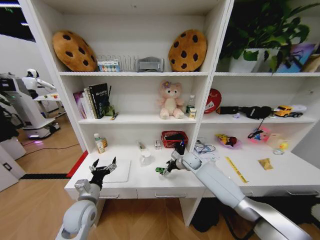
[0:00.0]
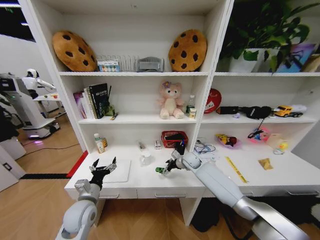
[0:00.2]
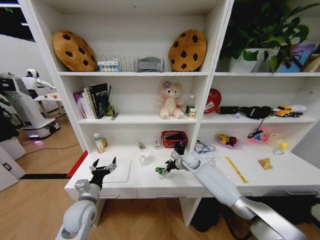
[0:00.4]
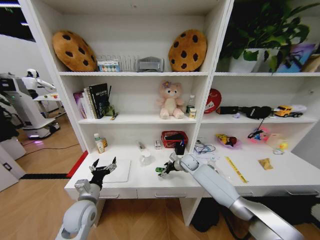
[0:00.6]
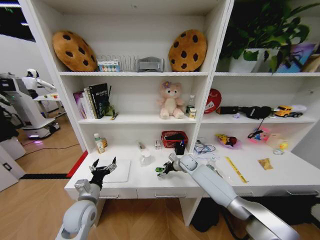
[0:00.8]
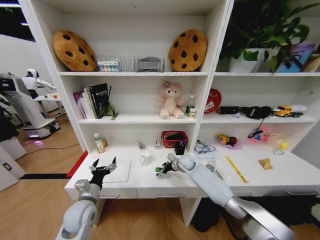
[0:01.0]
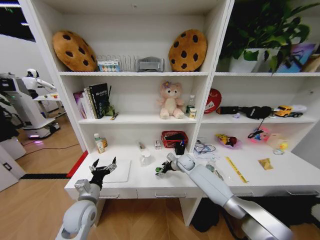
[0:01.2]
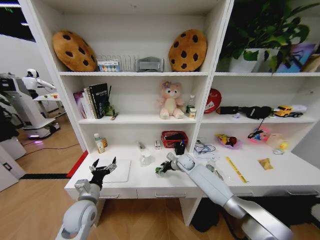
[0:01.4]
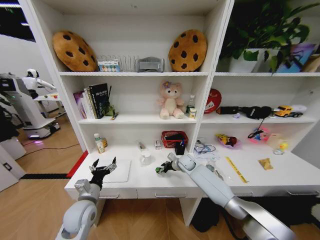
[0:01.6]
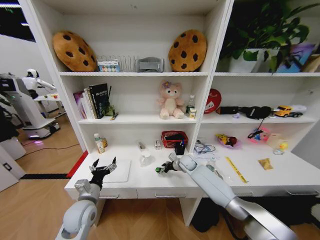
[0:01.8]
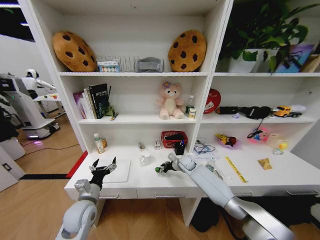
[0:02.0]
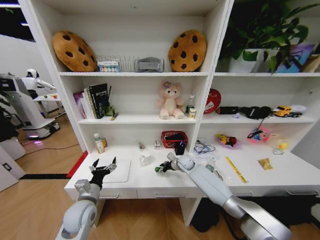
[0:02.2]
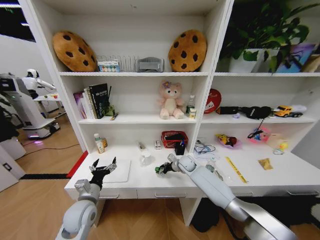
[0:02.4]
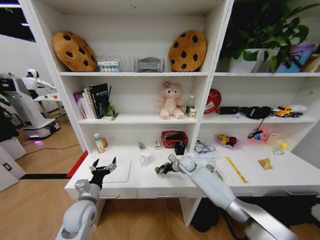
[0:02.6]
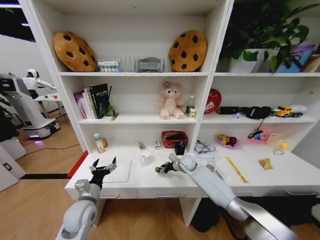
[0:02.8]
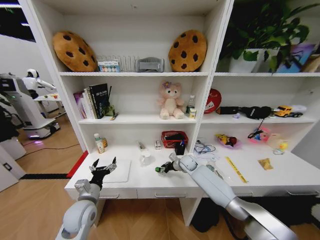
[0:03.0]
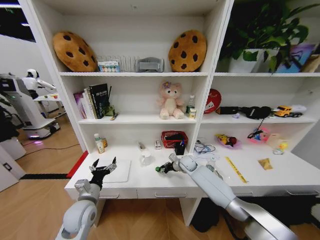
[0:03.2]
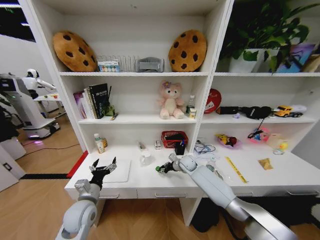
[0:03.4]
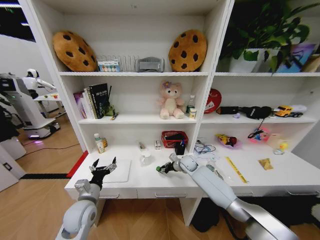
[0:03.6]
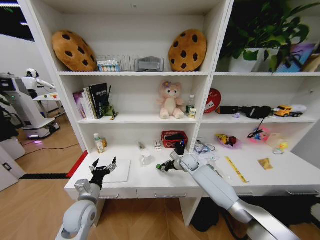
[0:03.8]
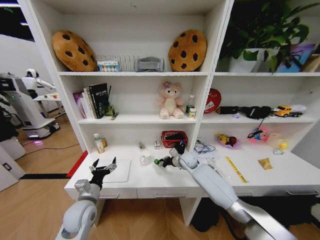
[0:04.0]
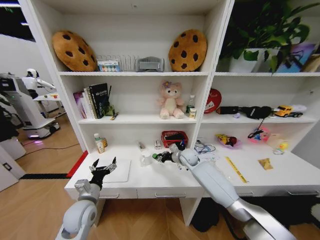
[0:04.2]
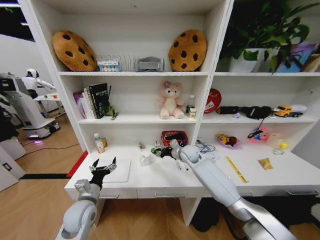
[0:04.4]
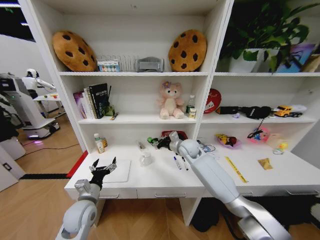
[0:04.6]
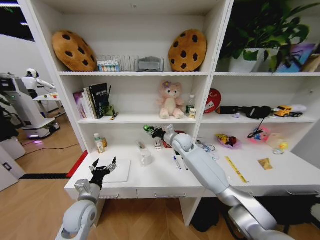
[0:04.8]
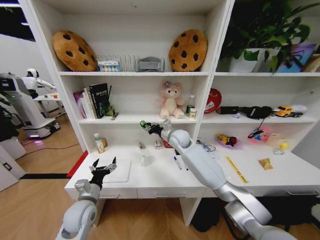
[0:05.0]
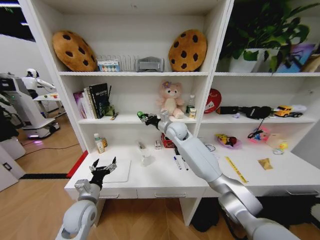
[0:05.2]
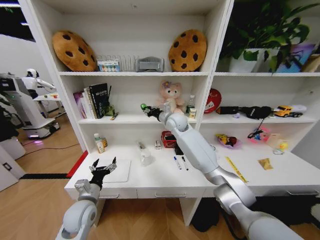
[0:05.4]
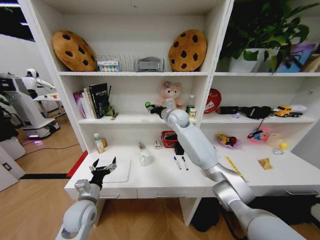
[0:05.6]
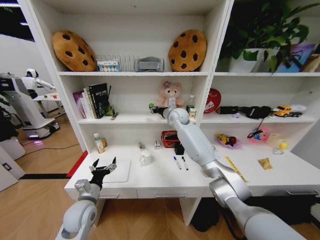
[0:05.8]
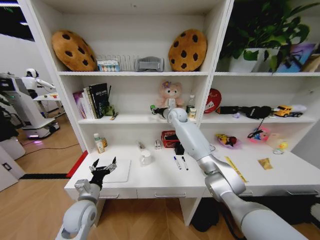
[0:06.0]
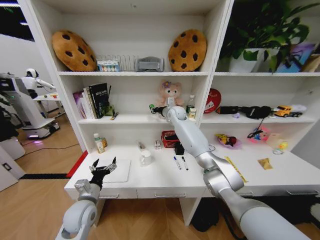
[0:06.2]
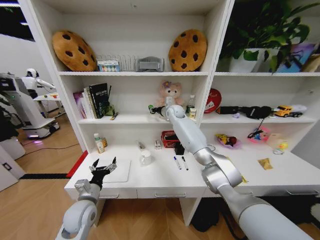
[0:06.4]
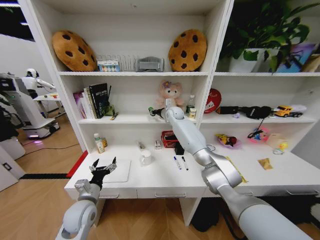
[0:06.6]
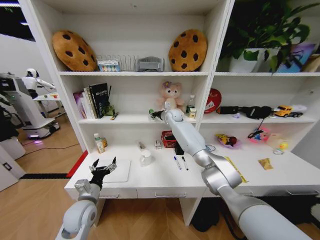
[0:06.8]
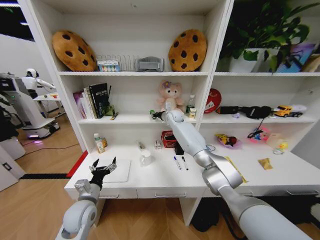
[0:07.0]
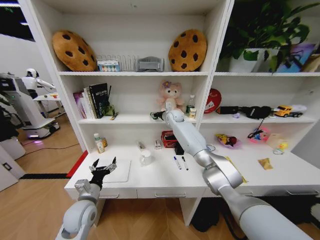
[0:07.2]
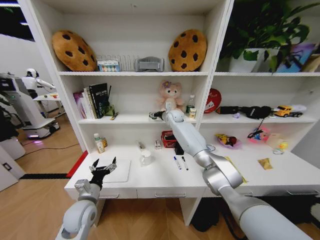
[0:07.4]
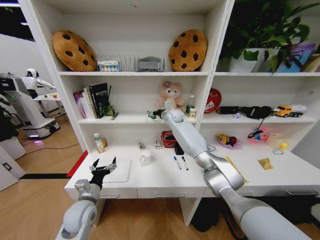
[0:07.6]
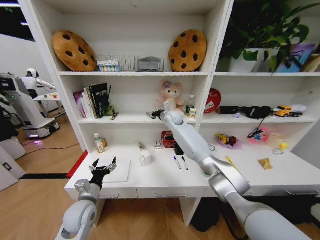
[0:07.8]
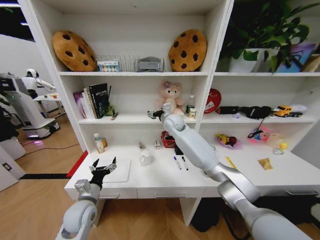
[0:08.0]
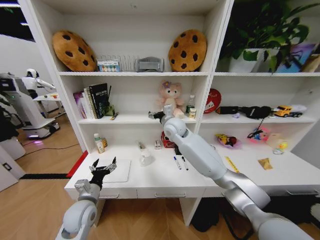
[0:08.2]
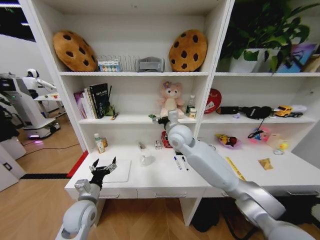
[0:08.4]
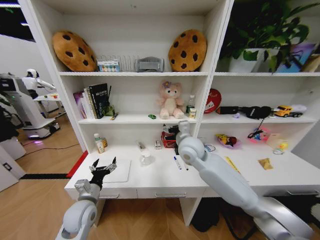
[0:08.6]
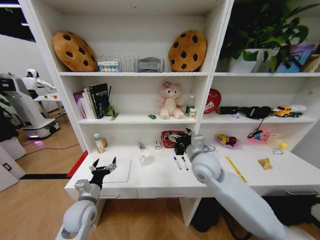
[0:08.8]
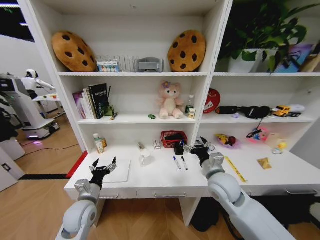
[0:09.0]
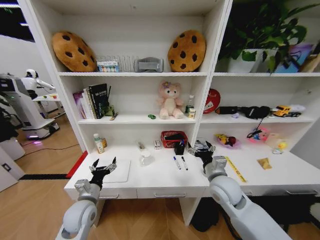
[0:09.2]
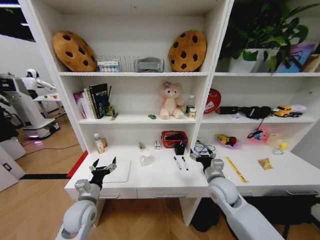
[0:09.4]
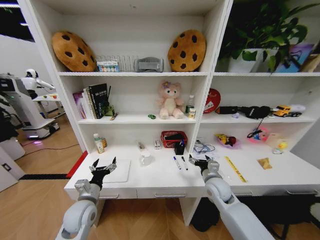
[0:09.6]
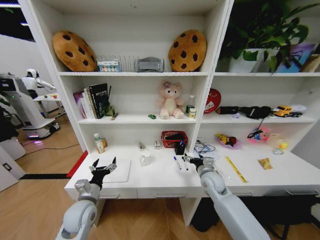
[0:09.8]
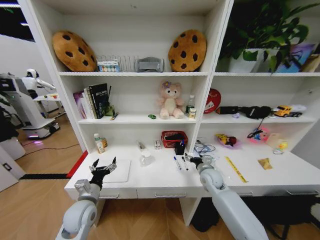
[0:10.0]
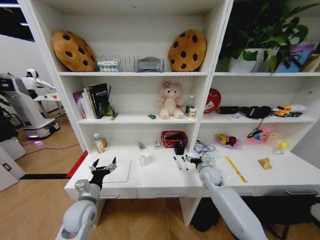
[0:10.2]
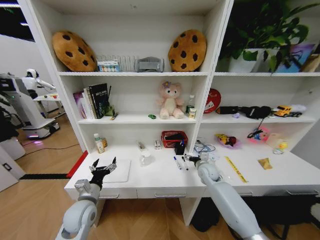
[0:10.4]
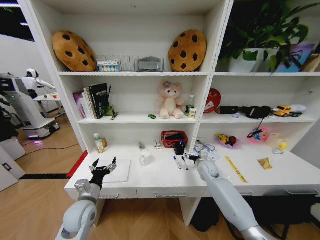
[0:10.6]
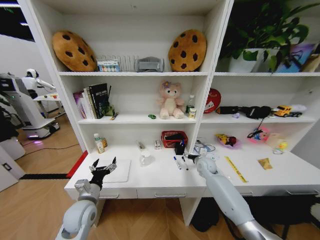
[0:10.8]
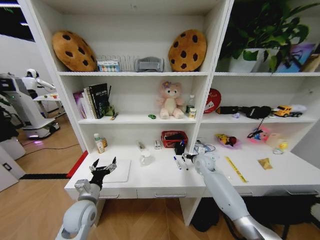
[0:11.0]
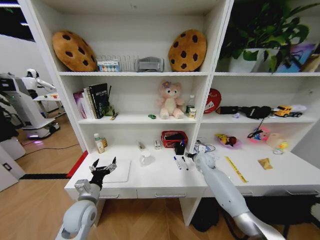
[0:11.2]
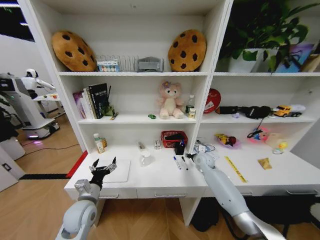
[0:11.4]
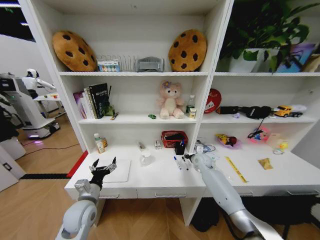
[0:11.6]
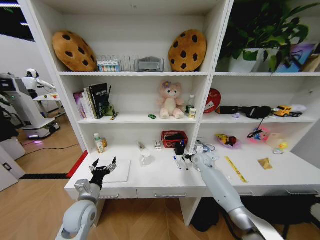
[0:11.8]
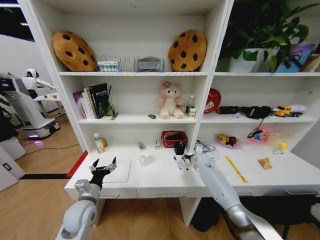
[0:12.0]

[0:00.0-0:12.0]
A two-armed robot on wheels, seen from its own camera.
Task of the whole recording: Organize the objects on the table.
0:00.0 to 0:01.6: There are only small adjustments of the grippers.
0:01.6 to 0:03.0: Both grippers stay about where they are.
0:03.0 to 0:04.4: The right gripper is displaced upward by roughly 10 cm.
0:04.4 to 0:06.0: The right gripper heads upward and forward, covering some 20 cm.
0:06.0 to 0:07.6: The right gripper opens.
0:07.6 to 0:09.0: The right gripper is displaced backward by approximately 35 cm.
0:09.0 to 0:10.4: The right gripper shifts approximately 20 cm forward, downward and to the right.
0:10.4 to 0:12.0: The right gripper shifts about 10 cm forward, and closes up.

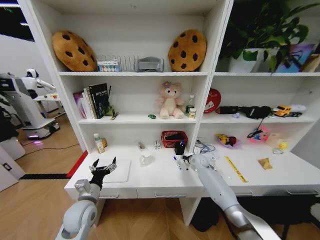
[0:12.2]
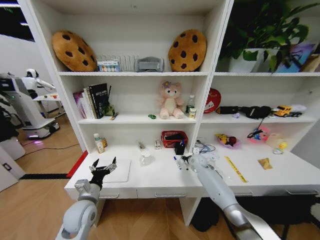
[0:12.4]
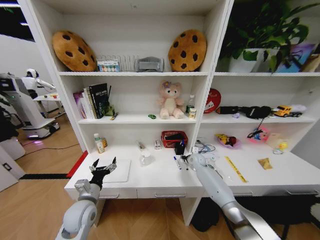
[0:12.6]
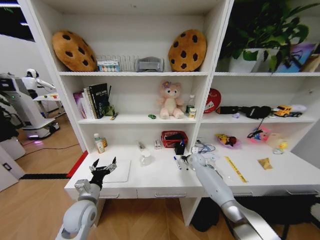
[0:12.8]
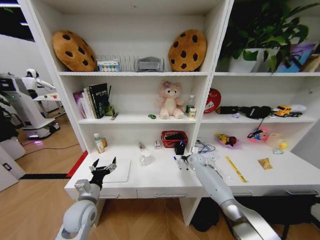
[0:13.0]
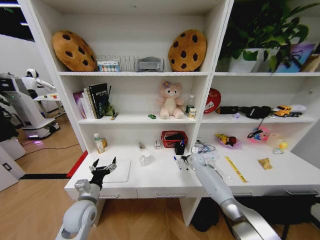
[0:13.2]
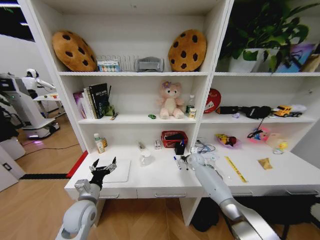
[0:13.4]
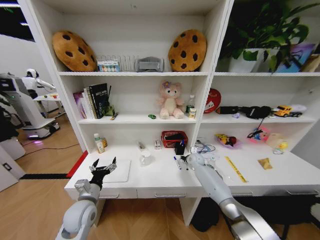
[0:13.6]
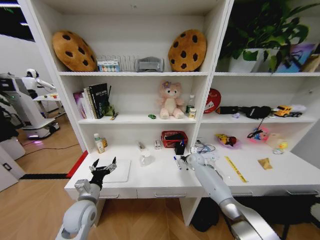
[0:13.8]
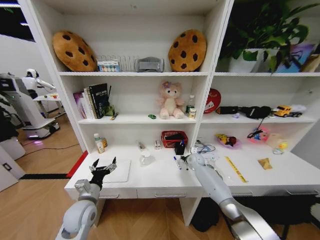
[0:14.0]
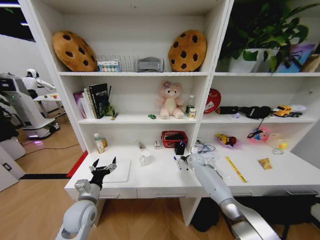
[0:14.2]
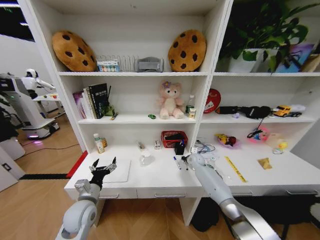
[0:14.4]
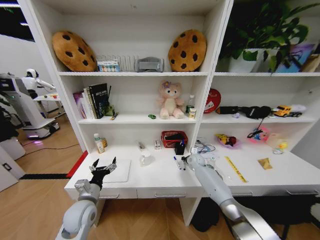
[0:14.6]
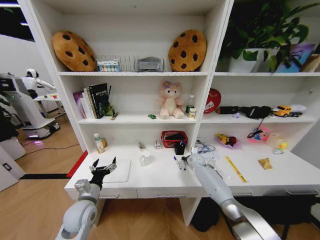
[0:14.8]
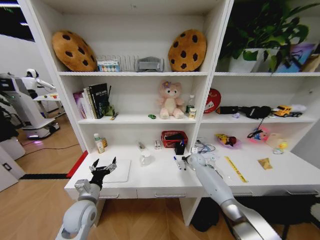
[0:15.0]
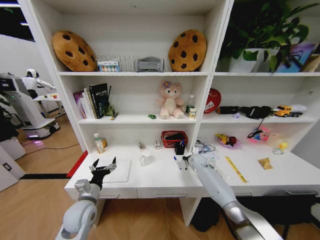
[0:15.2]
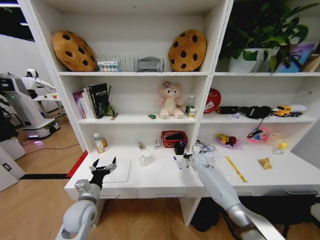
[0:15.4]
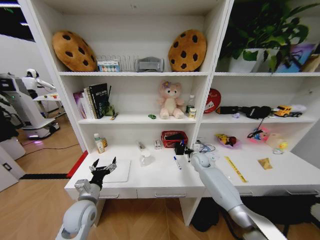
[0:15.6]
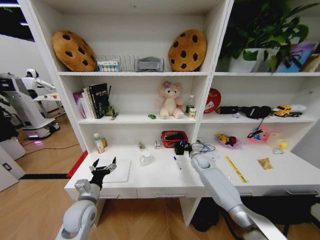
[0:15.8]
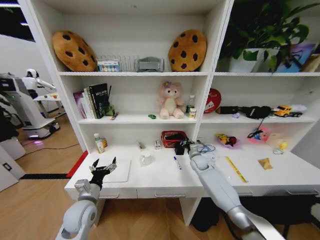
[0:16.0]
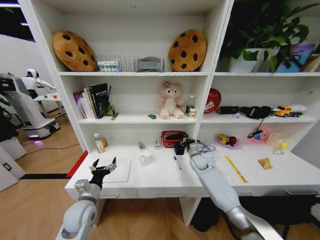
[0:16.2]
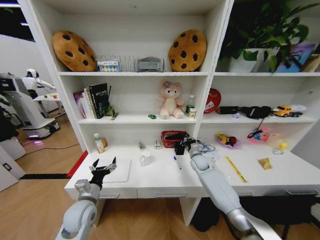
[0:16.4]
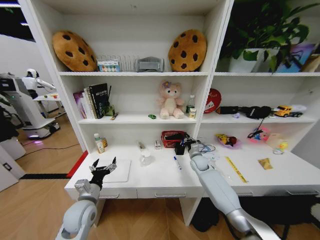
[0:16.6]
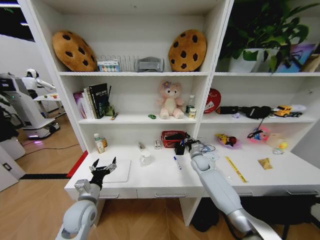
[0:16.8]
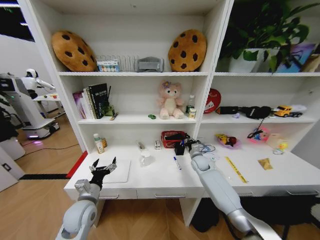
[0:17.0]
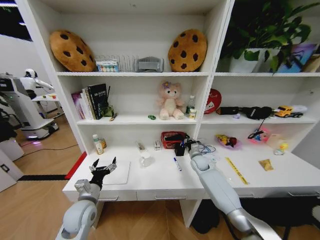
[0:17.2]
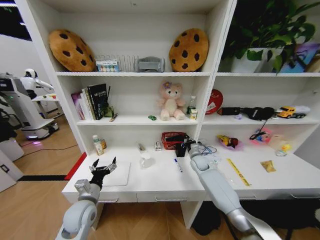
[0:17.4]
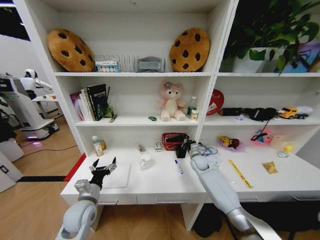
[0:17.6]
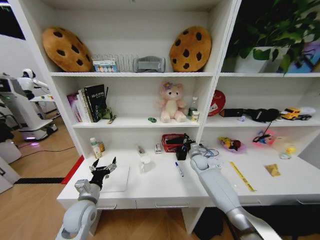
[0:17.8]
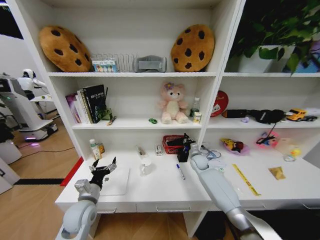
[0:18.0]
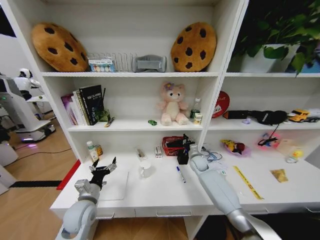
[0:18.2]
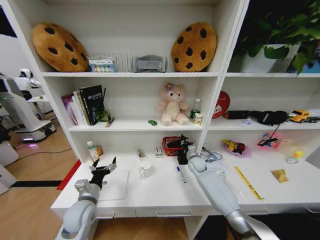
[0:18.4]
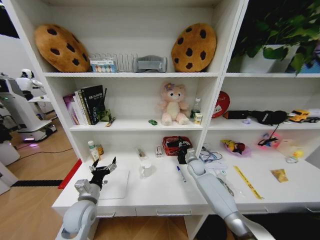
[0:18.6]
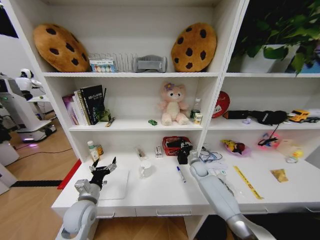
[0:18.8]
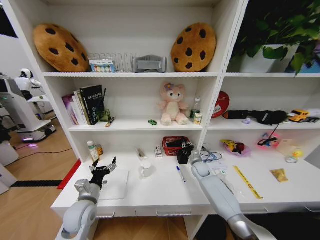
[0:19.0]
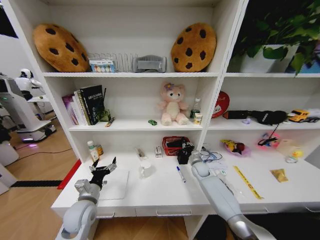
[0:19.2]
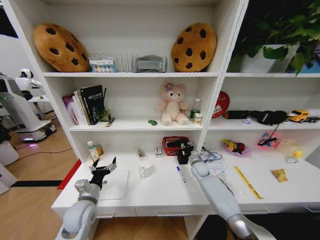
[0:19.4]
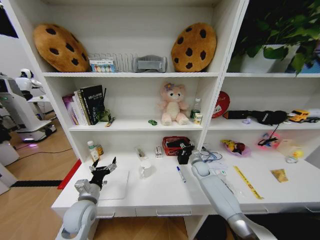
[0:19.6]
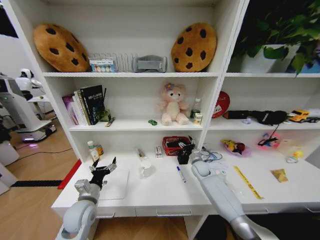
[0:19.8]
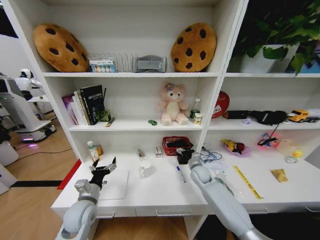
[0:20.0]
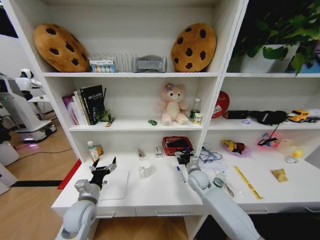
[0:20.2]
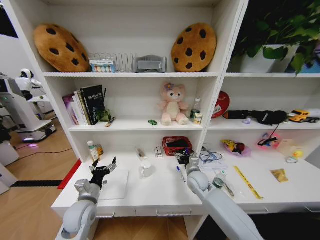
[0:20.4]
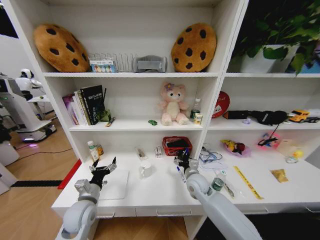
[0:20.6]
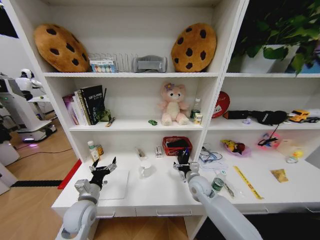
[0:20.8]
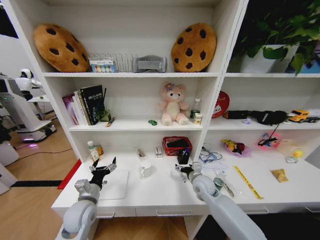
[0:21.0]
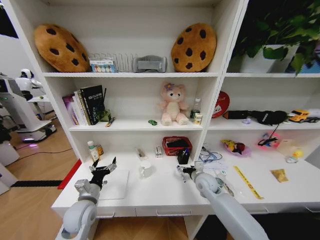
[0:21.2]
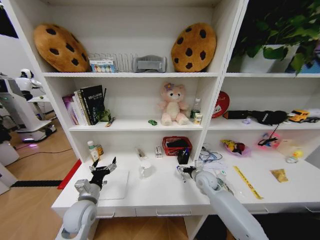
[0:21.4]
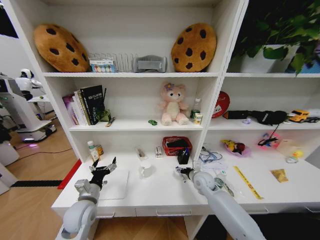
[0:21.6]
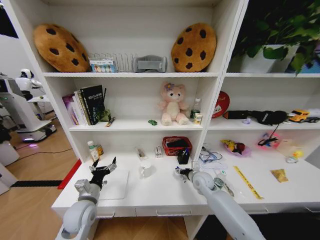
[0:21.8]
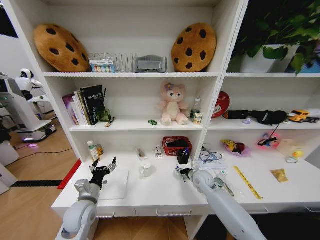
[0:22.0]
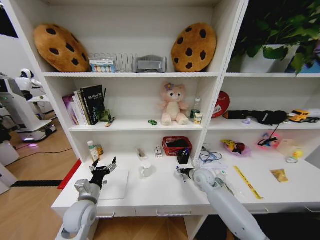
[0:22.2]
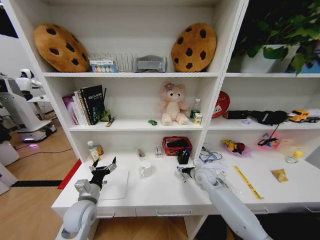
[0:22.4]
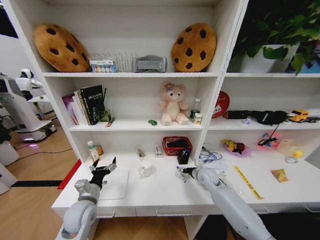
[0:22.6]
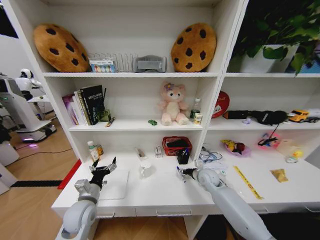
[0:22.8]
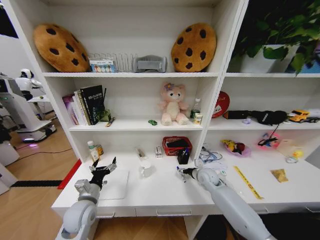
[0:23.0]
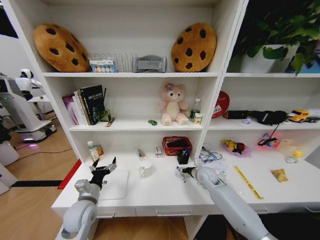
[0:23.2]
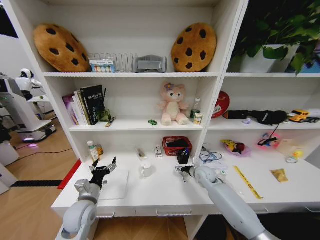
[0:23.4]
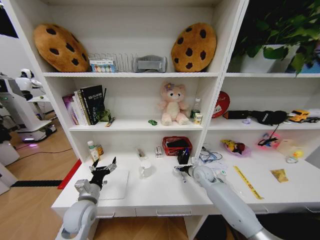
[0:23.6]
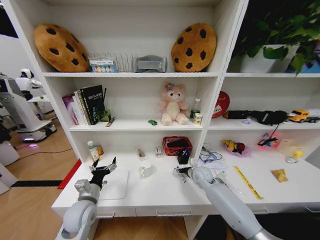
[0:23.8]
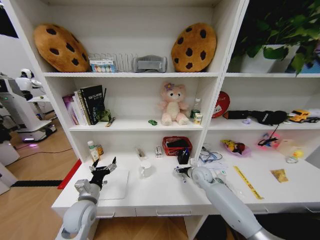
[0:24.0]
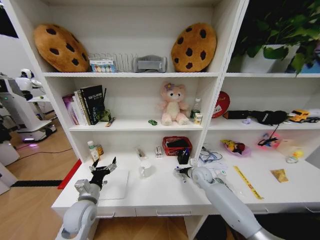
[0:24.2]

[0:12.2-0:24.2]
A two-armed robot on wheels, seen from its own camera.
Task of the whole recording: Organize the objects on the table.
0:12.2 to 0:13.8: There are only small adjustments of the grippers.
0:13.8 to 0:15.2: The right gripper closes up.
0:18.2 to 0:19.8: The right gripper opens up.
0:19.8 to 0:21.2: The right gripper moves backward, about 10 cm.
0:21.2 to 0:24.2: There are only small adjustments of the grippers.
